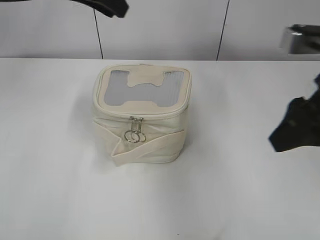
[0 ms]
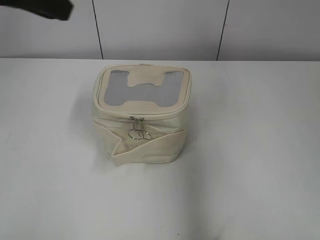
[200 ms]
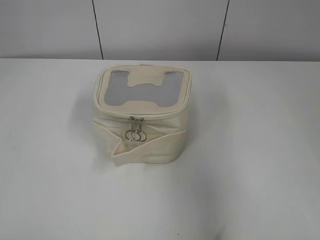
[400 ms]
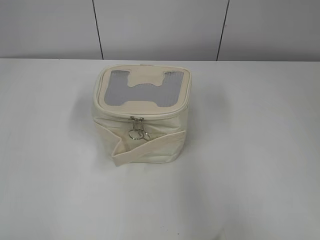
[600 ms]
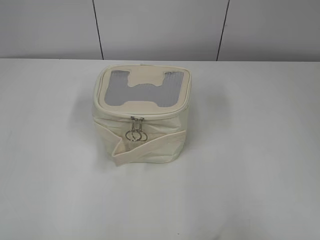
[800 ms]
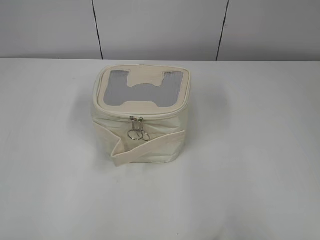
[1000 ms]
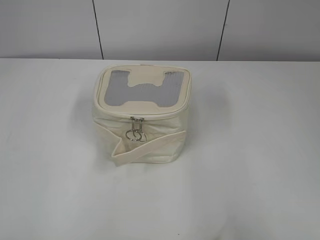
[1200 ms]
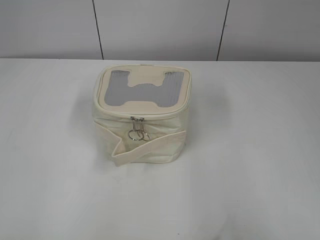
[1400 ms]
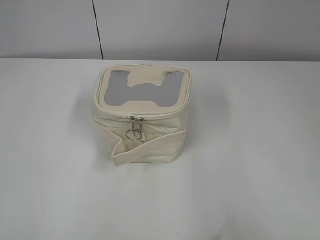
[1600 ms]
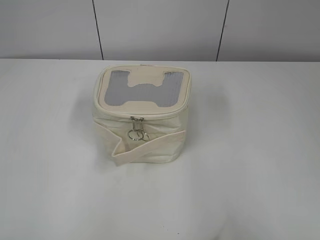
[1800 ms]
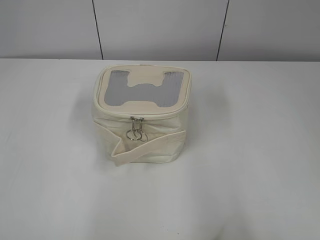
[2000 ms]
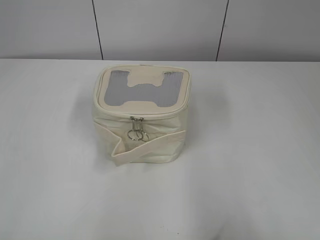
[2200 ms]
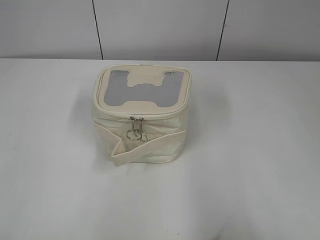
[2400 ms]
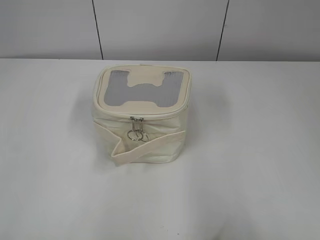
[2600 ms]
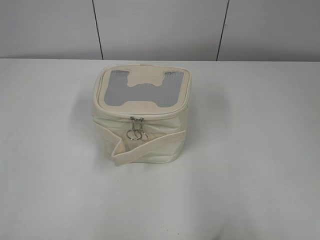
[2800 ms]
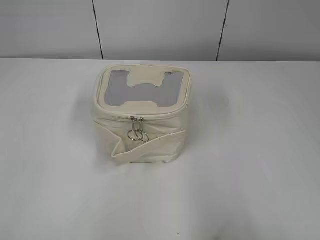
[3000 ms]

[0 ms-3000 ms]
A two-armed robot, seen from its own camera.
0 ms to 1600 ms: The right gripper goes roughly 25 cm backward and to the right. Meanwhile the left gripper heads backward and to the left, covering about 40 cm.

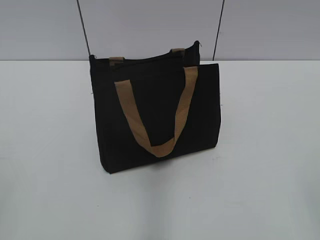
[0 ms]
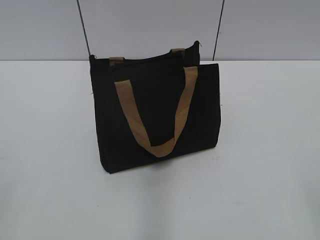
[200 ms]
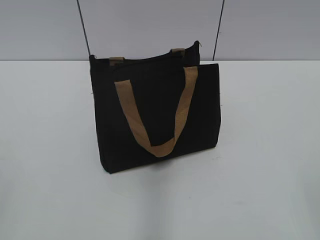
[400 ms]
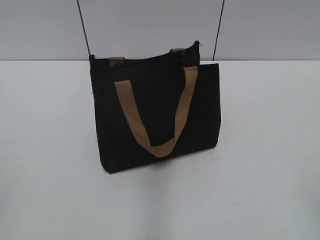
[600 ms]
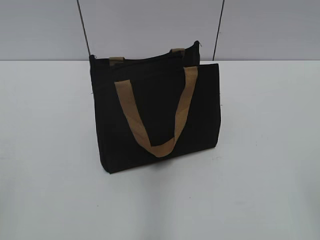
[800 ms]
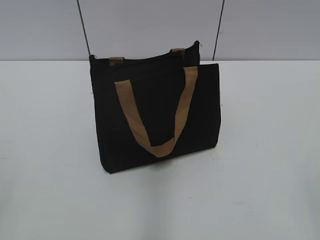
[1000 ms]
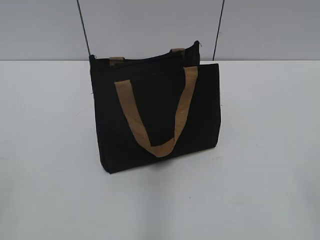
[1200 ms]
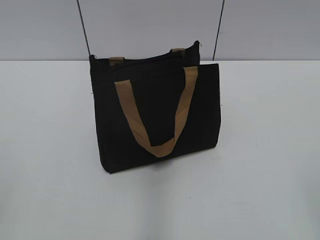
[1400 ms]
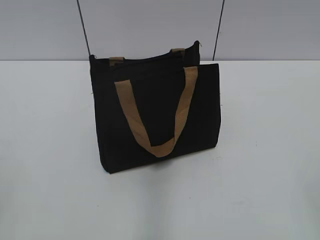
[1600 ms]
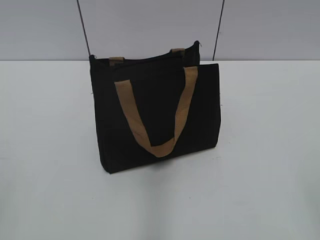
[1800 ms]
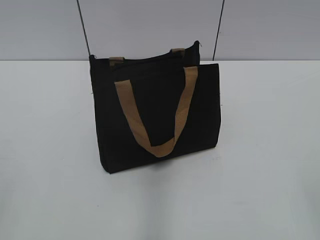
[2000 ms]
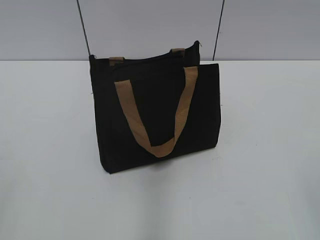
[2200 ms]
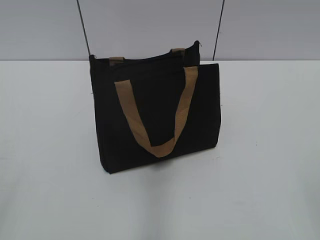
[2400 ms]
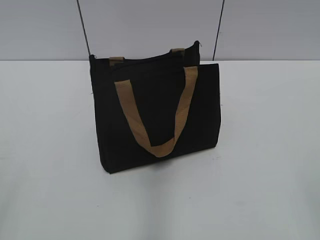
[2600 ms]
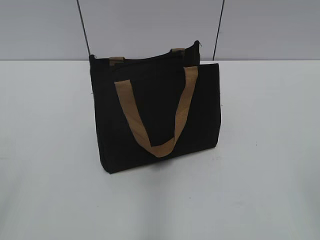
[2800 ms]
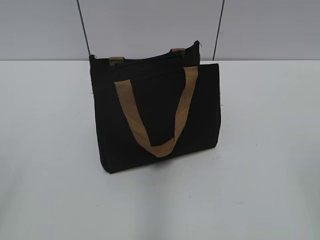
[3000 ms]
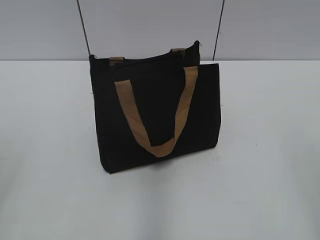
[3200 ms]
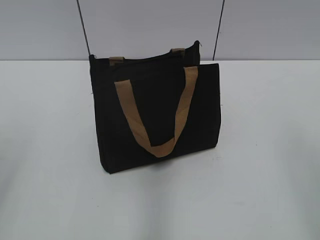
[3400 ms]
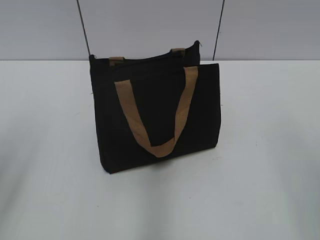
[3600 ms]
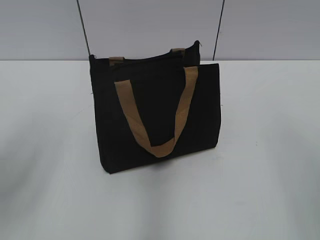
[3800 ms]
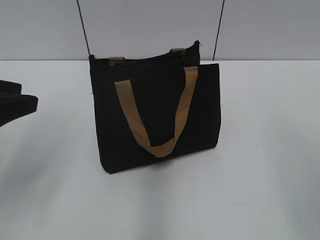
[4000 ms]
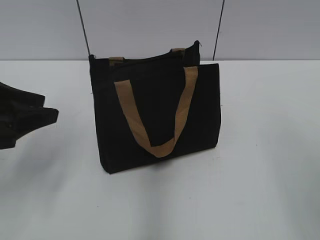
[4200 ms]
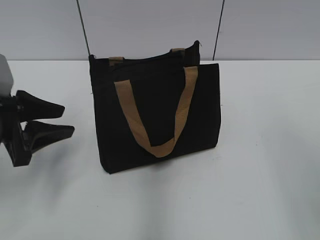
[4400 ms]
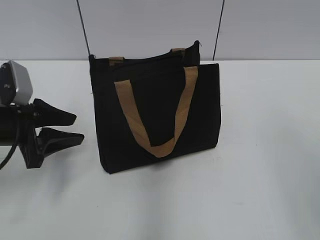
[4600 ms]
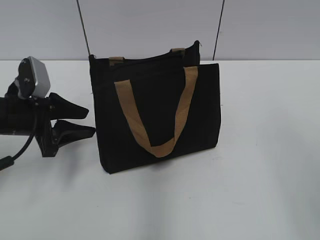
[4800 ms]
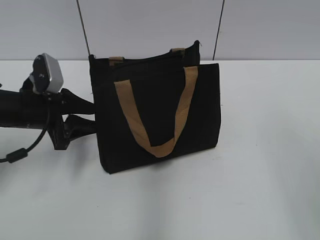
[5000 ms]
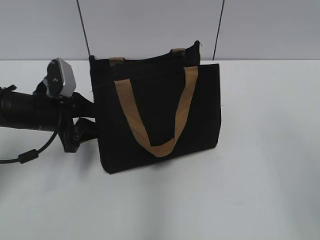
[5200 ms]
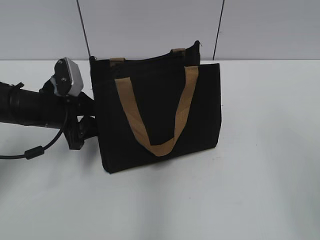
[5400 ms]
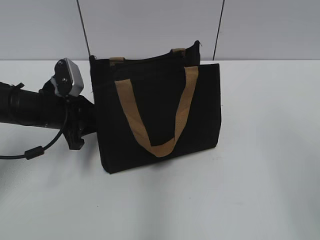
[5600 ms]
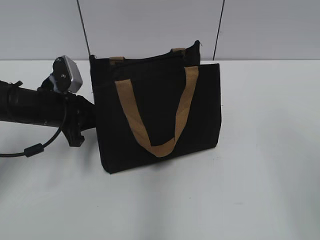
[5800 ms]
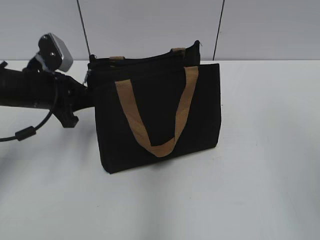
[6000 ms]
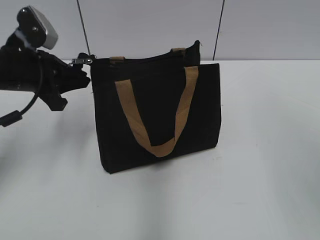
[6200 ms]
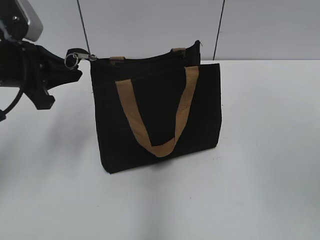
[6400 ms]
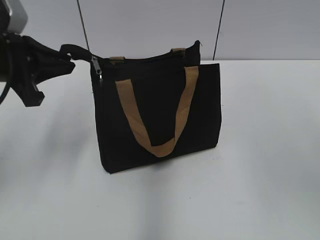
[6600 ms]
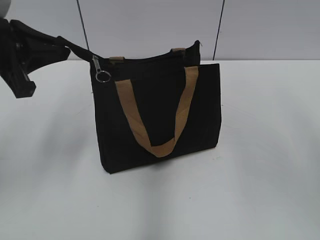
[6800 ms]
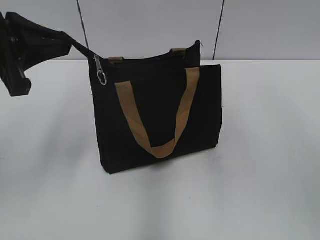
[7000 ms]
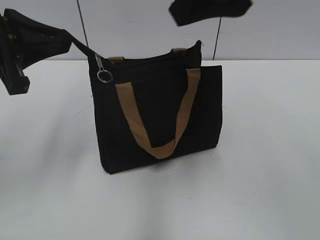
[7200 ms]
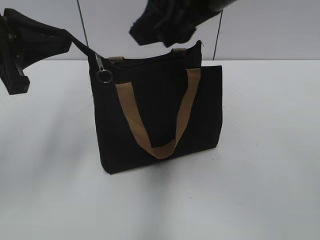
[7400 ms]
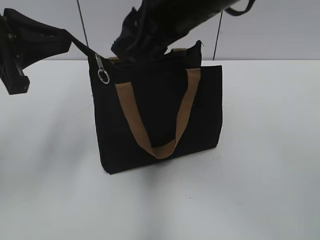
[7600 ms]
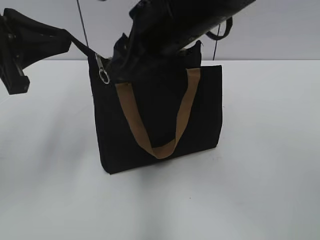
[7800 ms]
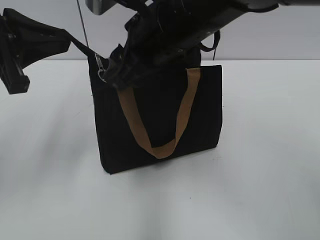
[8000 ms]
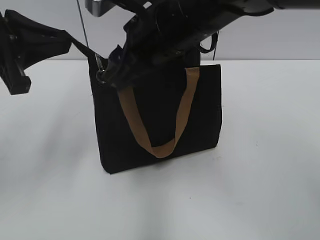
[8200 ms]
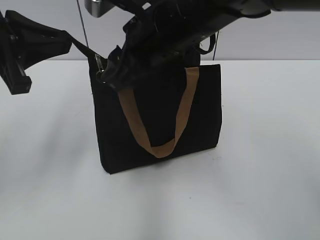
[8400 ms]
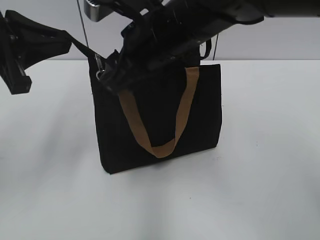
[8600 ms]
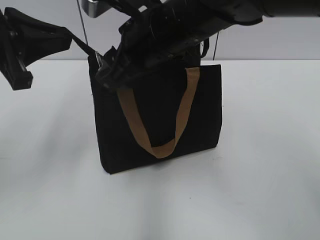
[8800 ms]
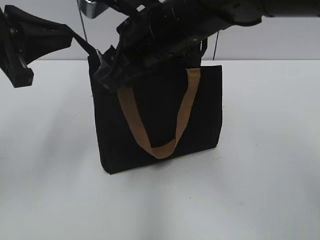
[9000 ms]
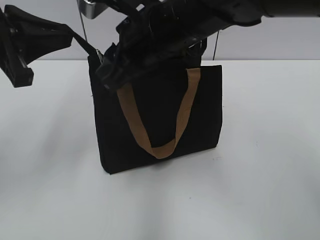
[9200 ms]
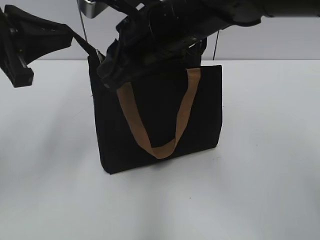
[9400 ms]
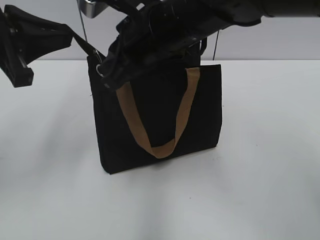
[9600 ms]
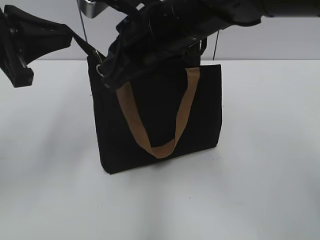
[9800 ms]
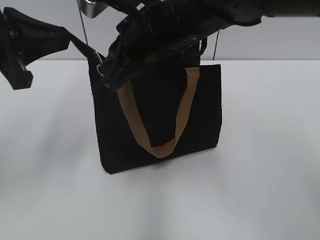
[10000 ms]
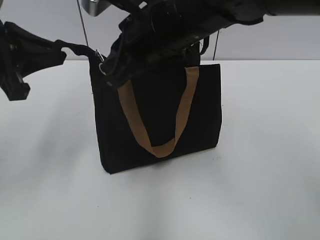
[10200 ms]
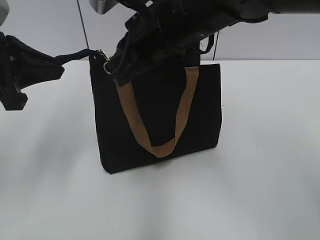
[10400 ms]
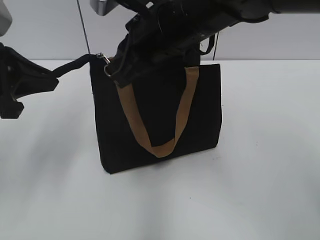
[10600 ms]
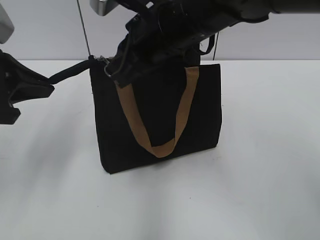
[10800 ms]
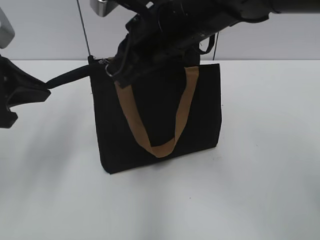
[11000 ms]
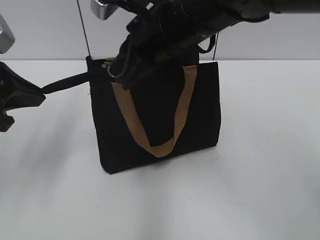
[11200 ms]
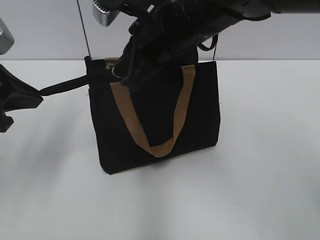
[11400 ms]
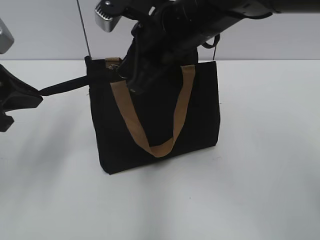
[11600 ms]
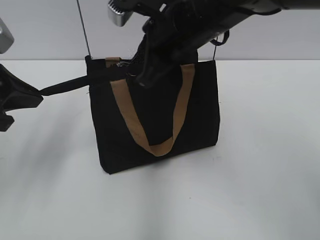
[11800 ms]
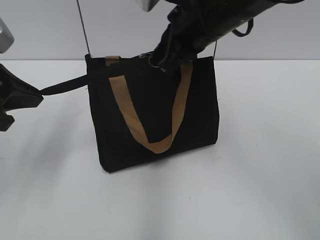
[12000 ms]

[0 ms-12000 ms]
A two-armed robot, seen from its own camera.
3000 ms to 4400 ms: The left gripper heads forward and downward, covering approximately 25 cm.
4400 ms to 6000 ms: The left gripper goes roughly 10 cm forward, and closes.
6000 ms to 7600 ms: The right gripper heads to the left and forward, covering roughly 30 cm. Meanwhile the left gripper is displaced upward and backward by about 15 cm.
7600 ms to 9000 ms: The right gripper heads downward, covering about 5 cm.
9000 ms to 10400 ms: The right gripper closes its fingers.
10400 ms to 12000 ms: The right gripper goes roughly 5 cm to the right.

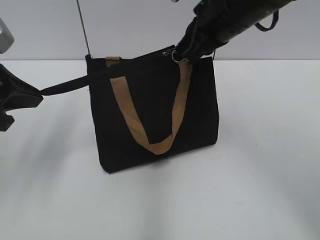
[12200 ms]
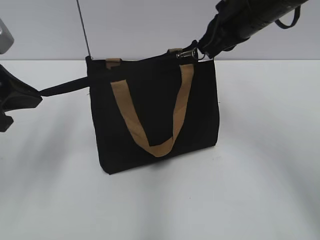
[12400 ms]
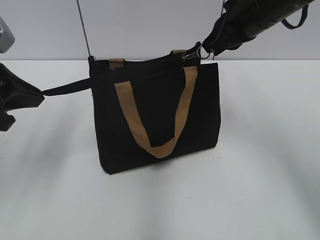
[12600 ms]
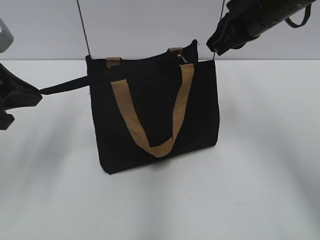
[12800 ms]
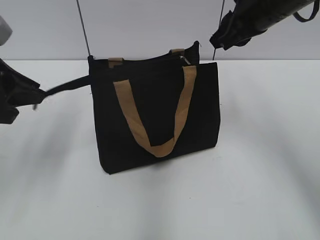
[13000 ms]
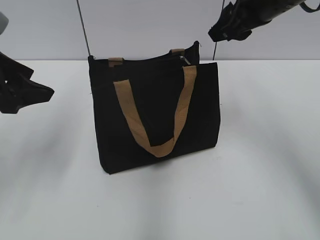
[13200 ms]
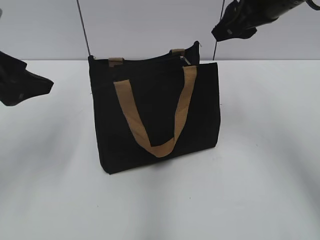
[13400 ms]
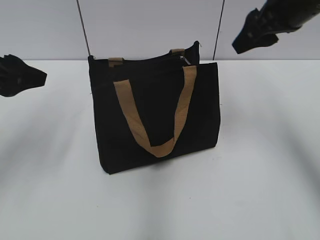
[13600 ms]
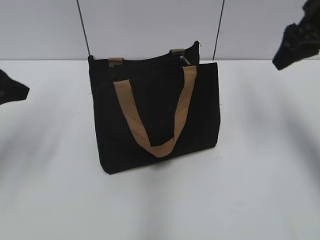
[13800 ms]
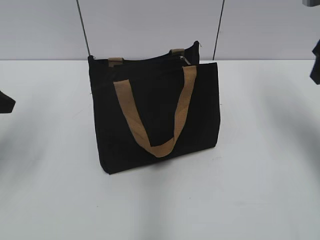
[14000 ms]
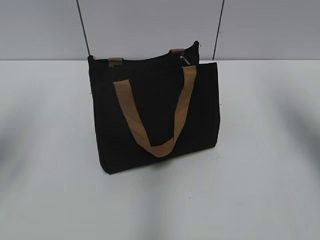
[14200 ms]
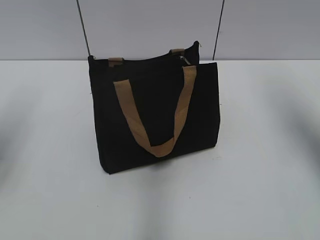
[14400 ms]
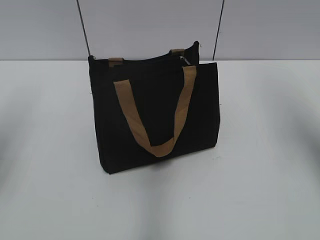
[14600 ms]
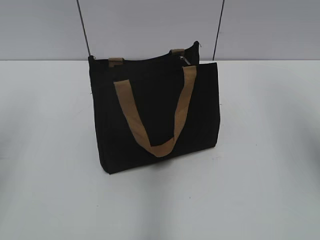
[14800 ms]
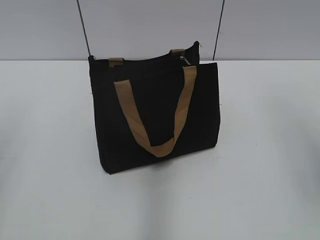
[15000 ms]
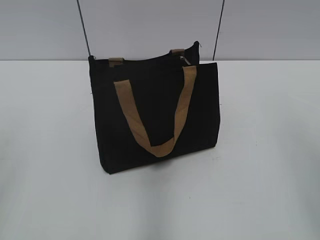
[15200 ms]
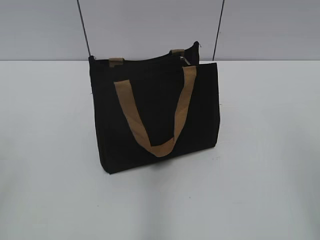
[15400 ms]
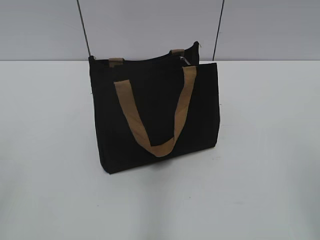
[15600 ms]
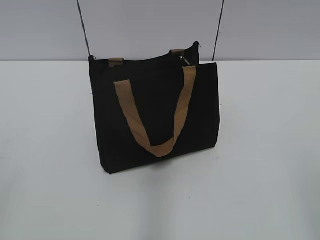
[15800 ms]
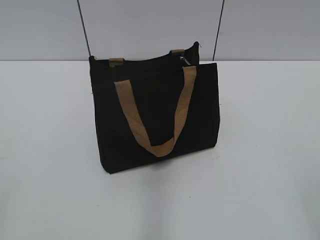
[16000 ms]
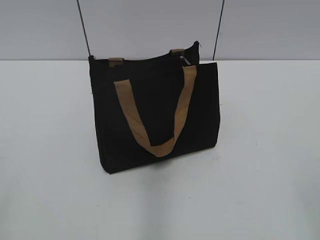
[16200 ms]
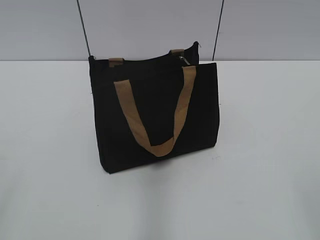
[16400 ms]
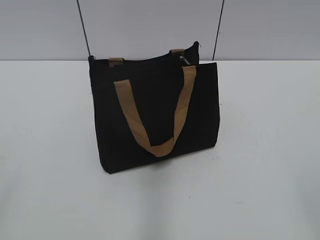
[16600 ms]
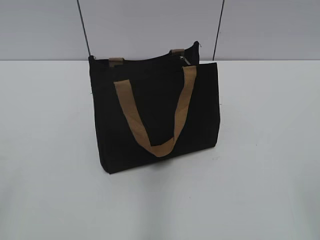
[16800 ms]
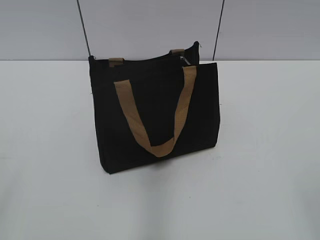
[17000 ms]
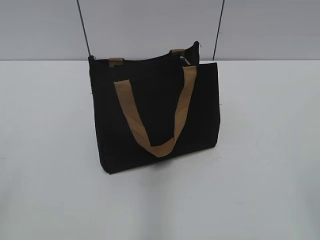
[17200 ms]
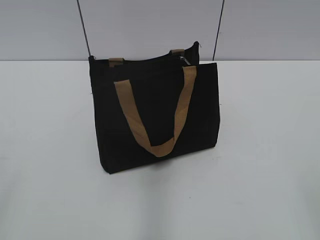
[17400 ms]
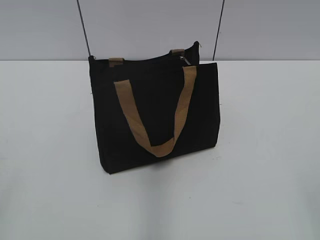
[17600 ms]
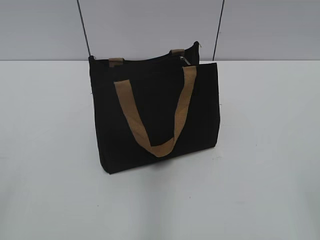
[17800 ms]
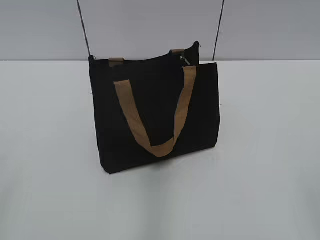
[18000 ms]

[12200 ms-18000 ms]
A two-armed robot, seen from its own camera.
Step, 12800 ms to 13000 ms: Grab the zipper with your left hand.
12200 ms to 13600 ms: The right gripper heads to the right, covering about 10 cm, and opens up; the left gripper opens.
13600 ms to 15000 ms: The left gripper is displaced backward and to the left by approximately 15 cm; the right gripper heads backward and to the right, covering about 20 cm.
15000 ms to 16600 ms: The right gripper shifts some 20 cm backward and downward.
16600 ms to 18000 ms: The two grippers keep their place.

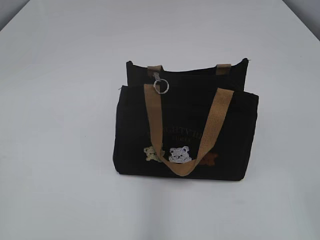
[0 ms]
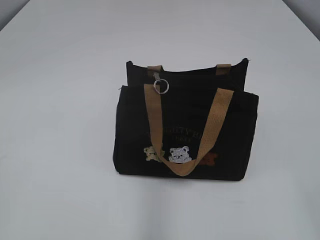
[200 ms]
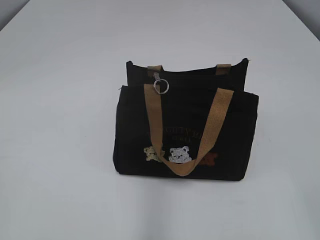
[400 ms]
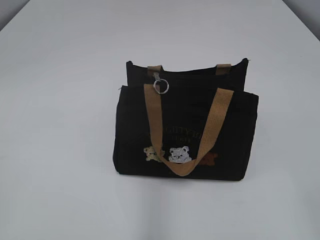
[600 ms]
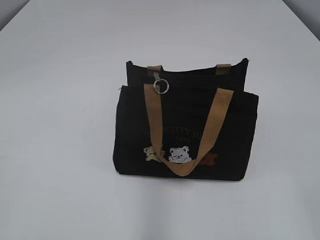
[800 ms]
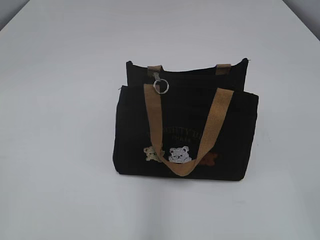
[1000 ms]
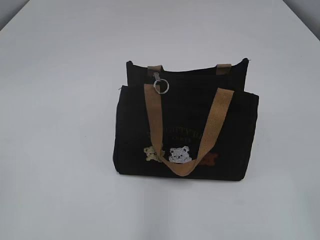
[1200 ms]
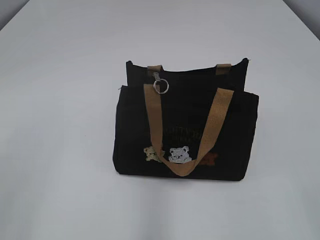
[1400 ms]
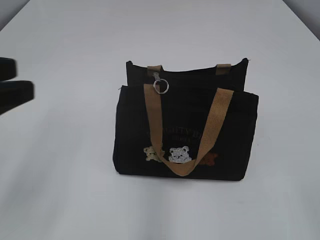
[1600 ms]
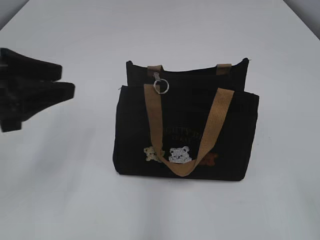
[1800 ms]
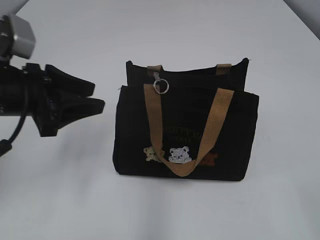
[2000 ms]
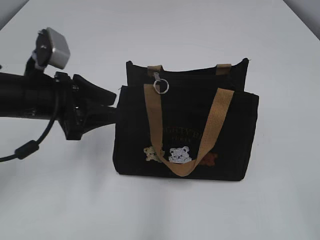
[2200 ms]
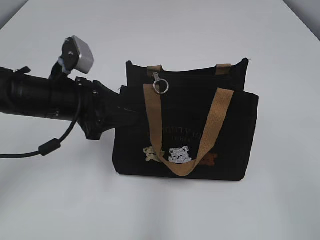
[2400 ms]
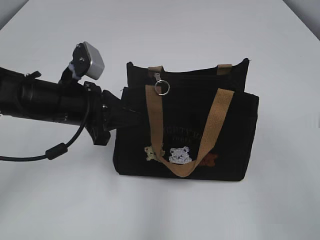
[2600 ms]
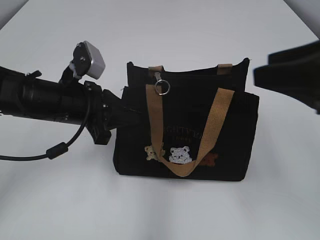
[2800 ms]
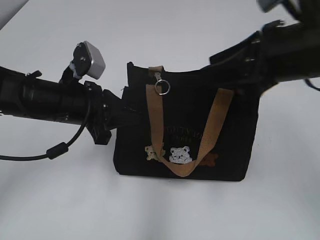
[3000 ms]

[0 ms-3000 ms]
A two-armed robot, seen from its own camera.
1600 ms to 3000 ms: The right gripper goes roughly 25 cm forward. The left gripper is displaced forward, downward and to the right by some 20 cm, and closes.
